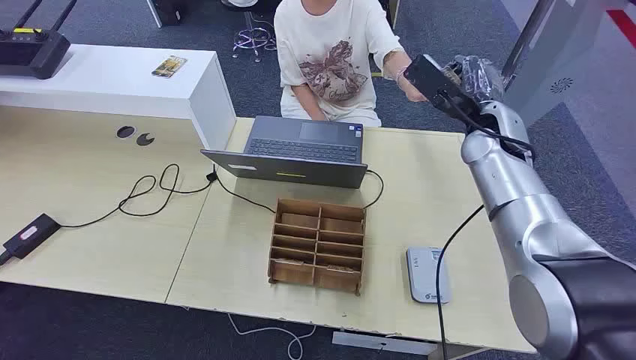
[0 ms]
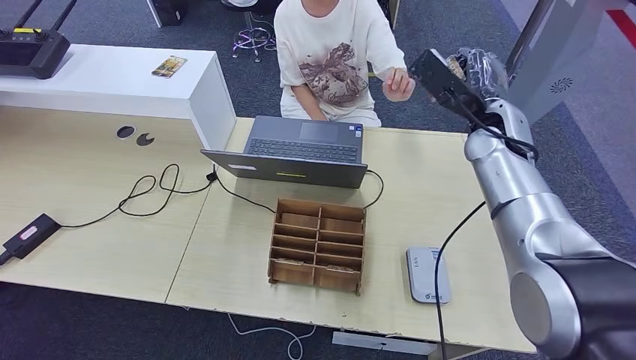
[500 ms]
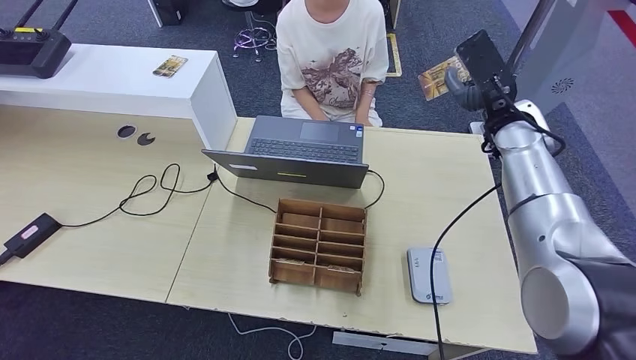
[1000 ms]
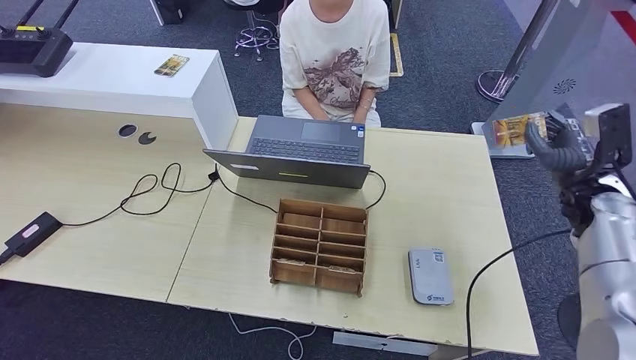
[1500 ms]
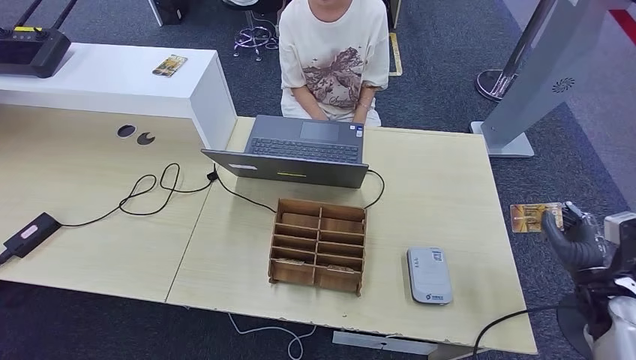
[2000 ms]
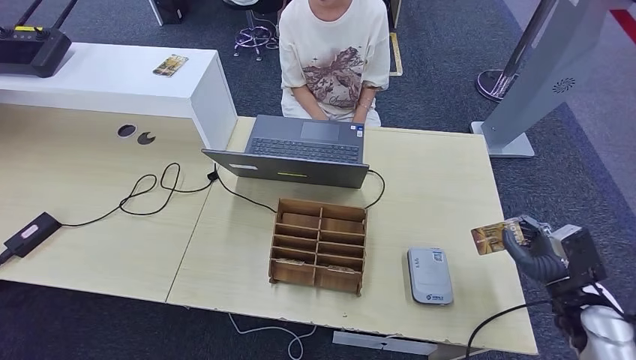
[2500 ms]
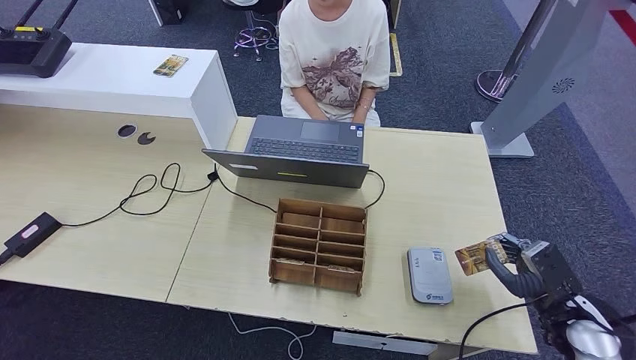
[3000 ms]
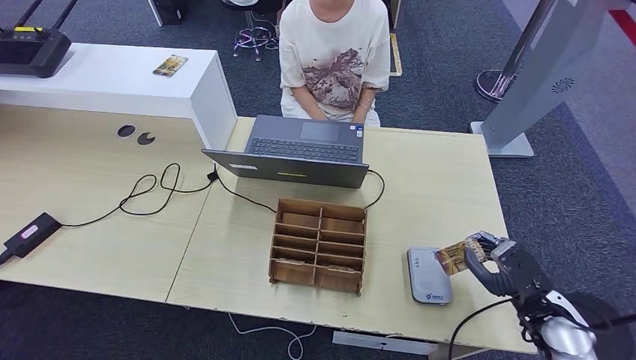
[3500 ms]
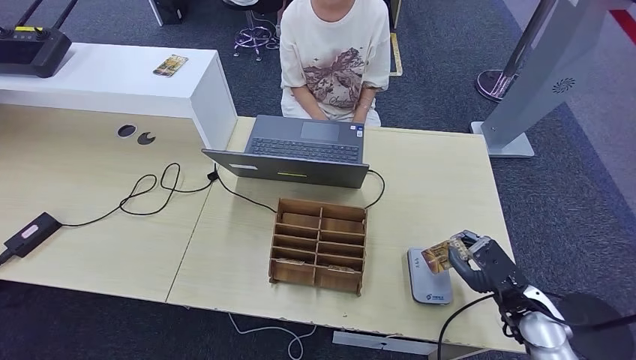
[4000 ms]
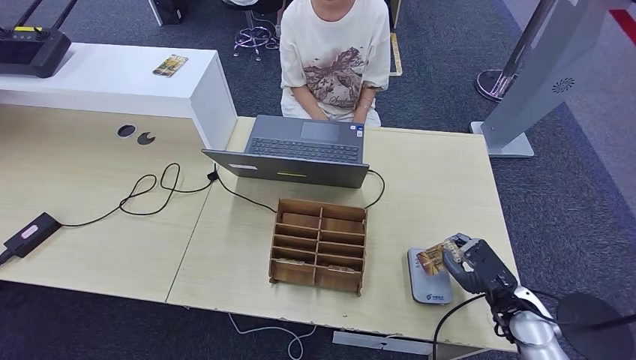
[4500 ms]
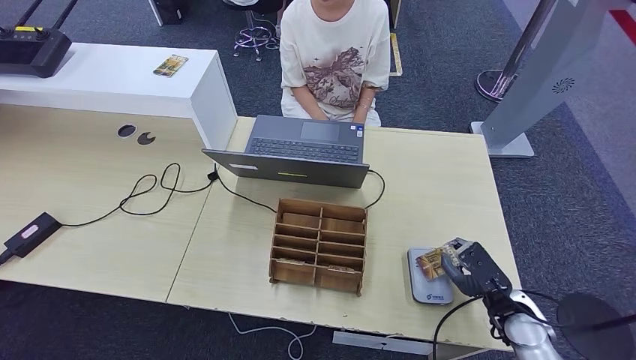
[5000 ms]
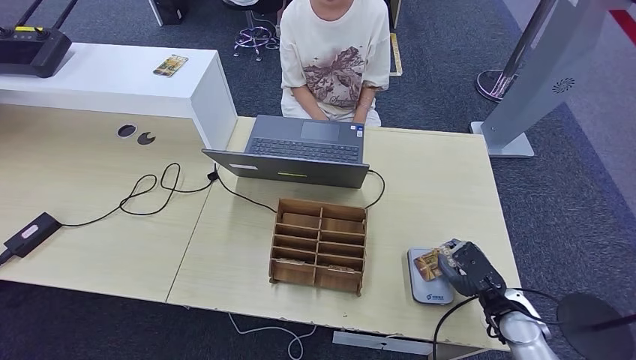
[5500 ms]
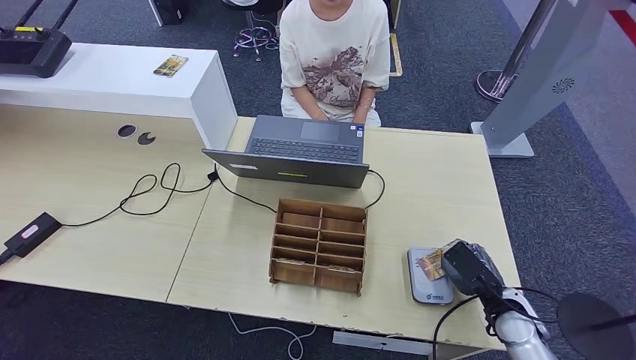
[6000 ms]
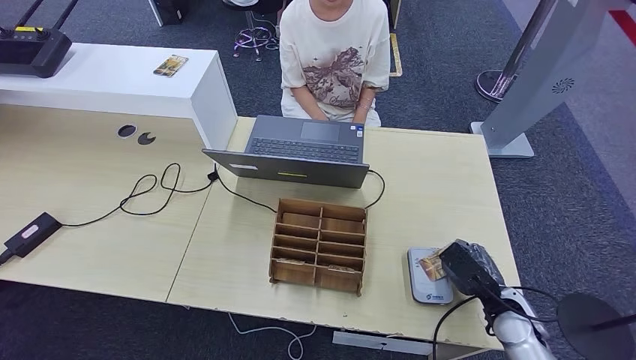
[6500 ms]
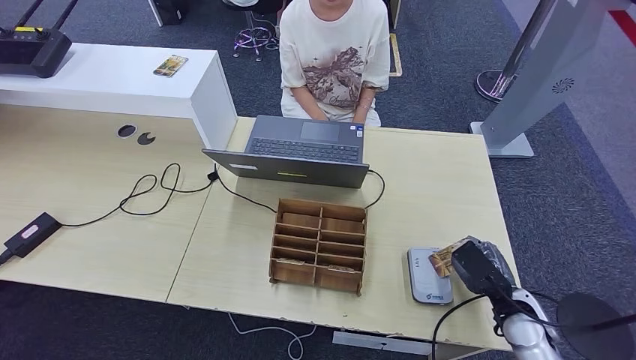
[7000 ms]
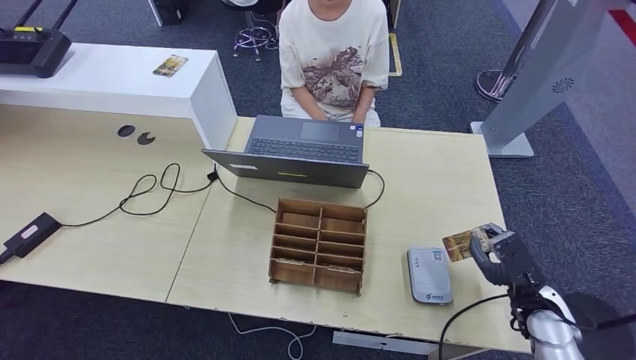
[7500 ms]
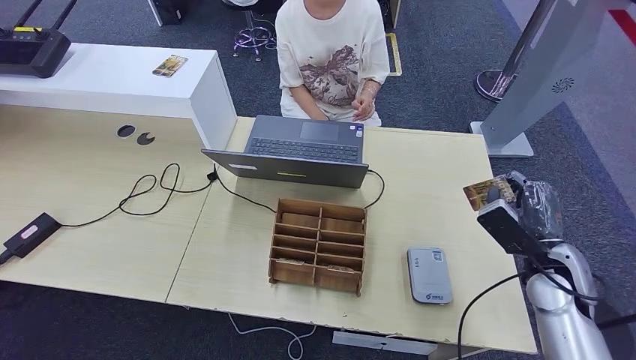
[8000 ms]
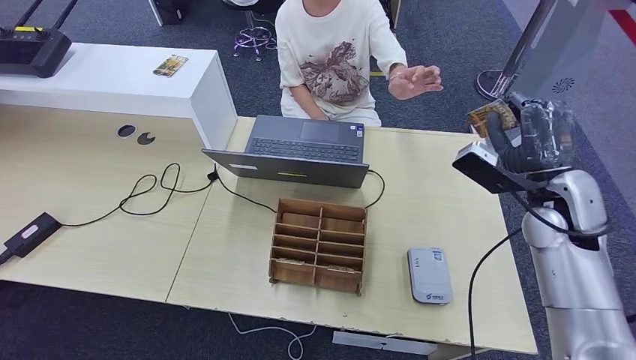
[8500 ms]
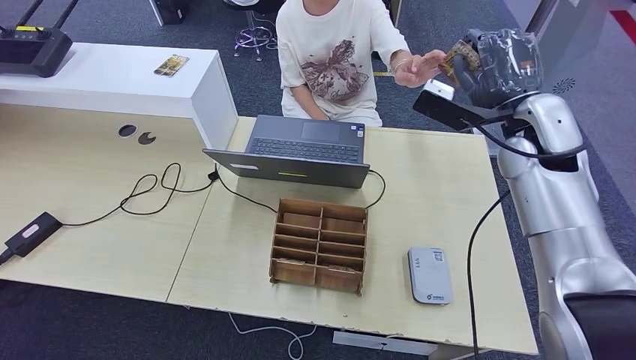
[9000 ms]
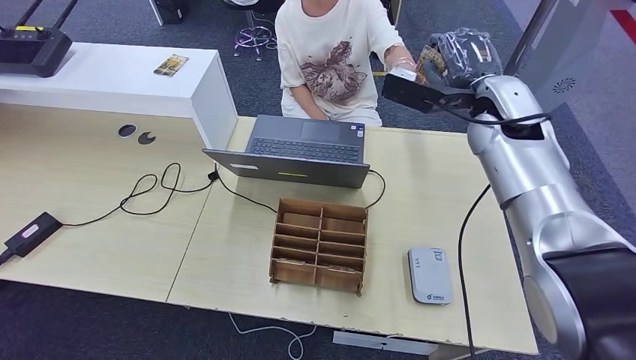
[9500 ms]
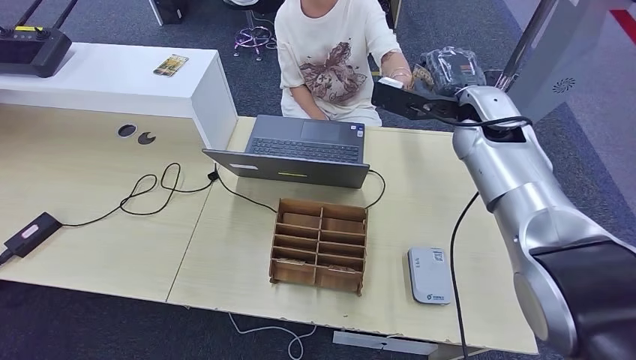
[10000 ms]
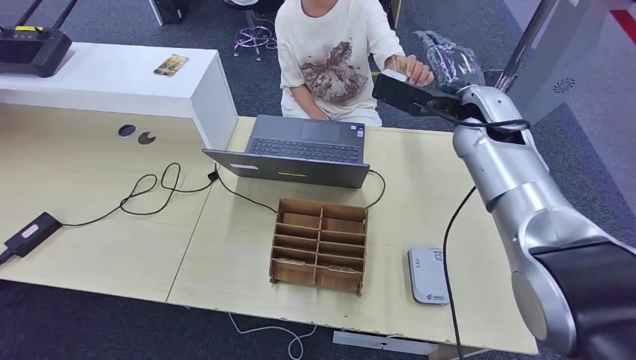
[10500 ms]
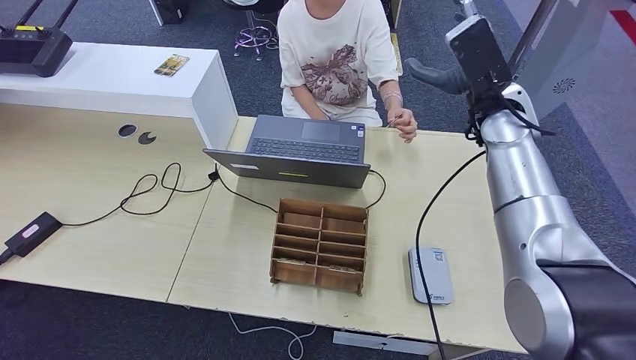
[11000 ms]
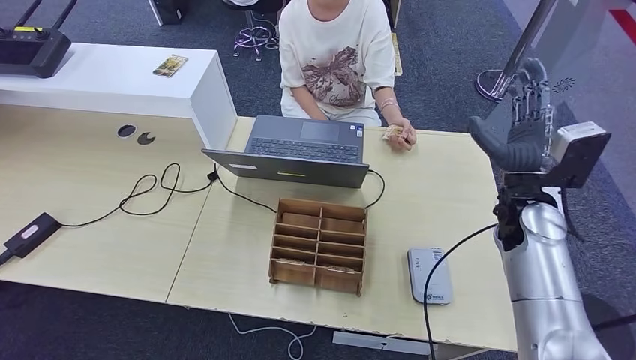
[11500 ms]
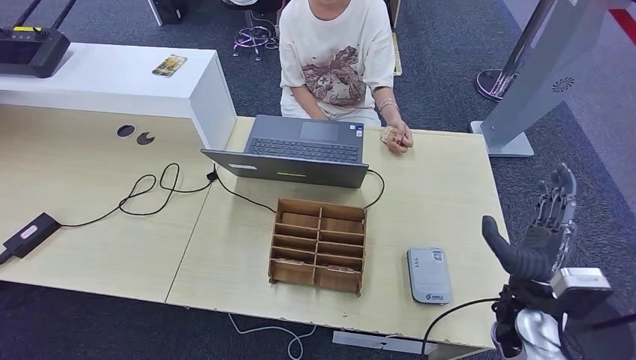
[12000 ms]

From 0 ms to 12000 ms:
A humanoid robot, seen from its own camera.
Step, from 0 ms to 1500 ms: Take the ID card from the person's hand.
Step, from 2000 ms to 8000 ms: Place the ID card on the card reader.
Step, from 8500 ms to 11500 ms: Hand the ID card to the person.
From 2000 ms to 4000 ms: The right hand moves to the left, approximately 10 cm.
From 4000 ms to 6000 ms: There are only small adjustments of the hands.
From 6000 ms to 8000 ms: The right hand is displaced upward by approximately 10 cm.
From 8000 ms to 10000 ms: The right hand shifts roughly 25 cm upward, forward and to the left.
From 10000 ms to 12000 ms: The right hand goes about 30 cm backward and downward.

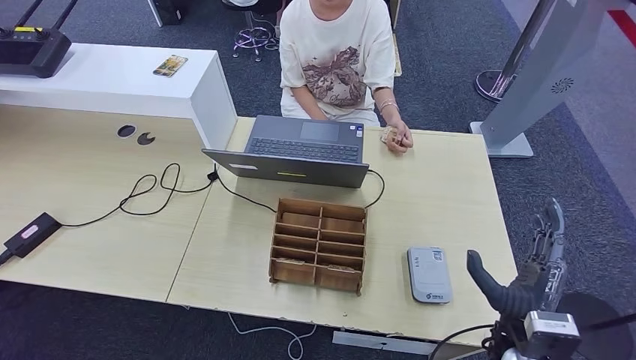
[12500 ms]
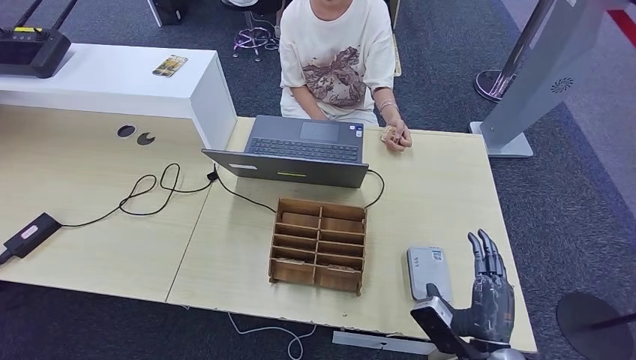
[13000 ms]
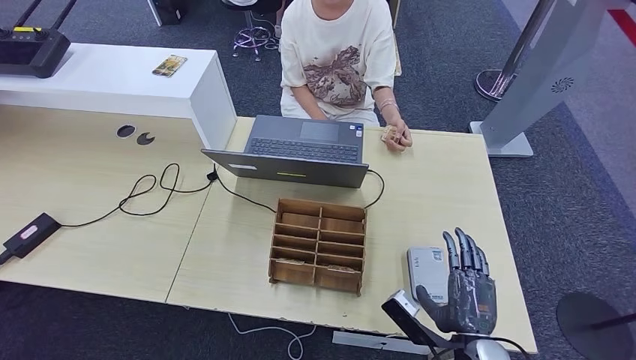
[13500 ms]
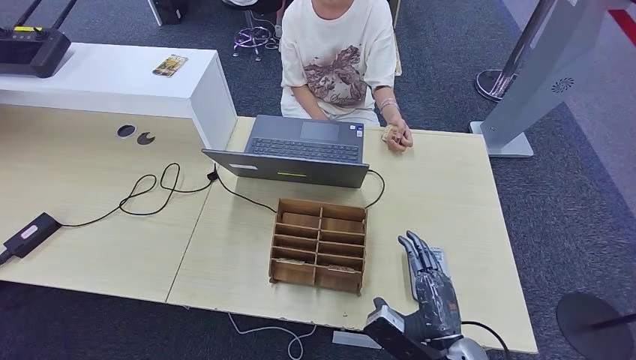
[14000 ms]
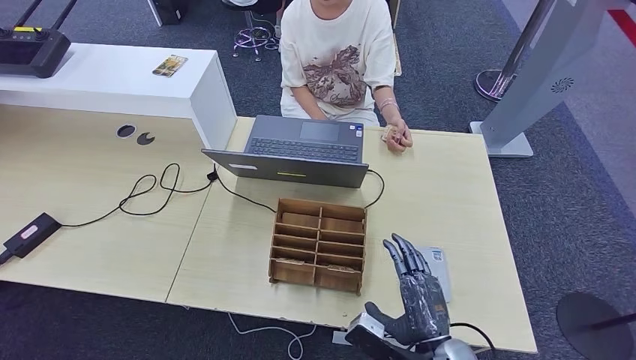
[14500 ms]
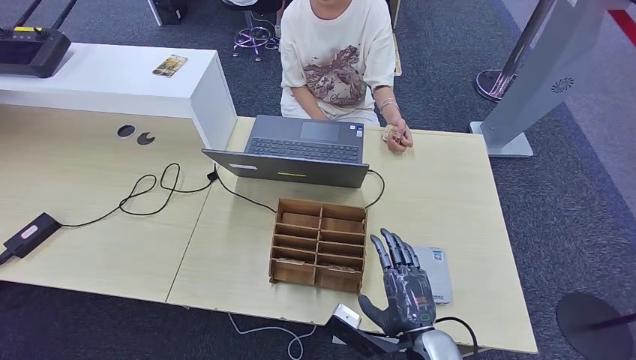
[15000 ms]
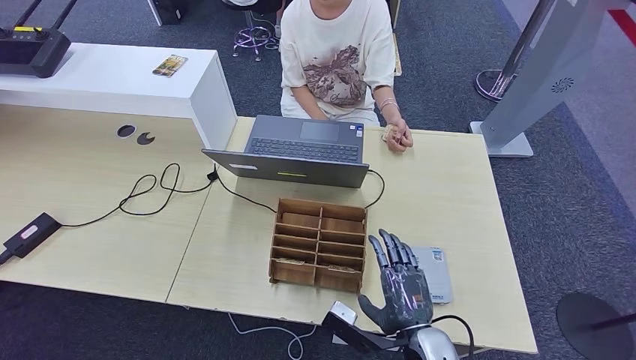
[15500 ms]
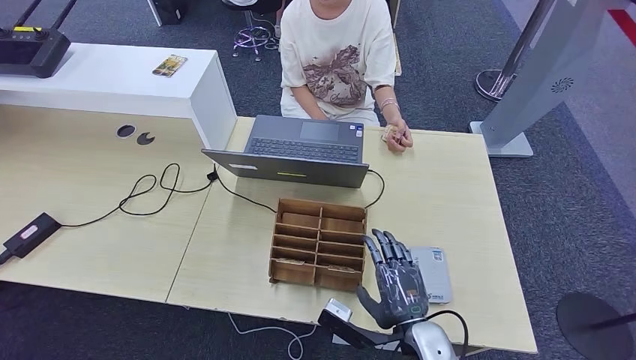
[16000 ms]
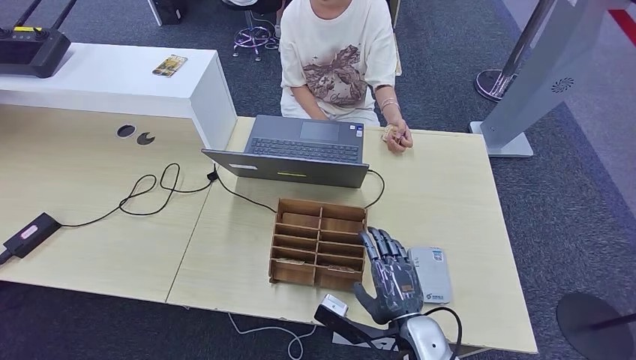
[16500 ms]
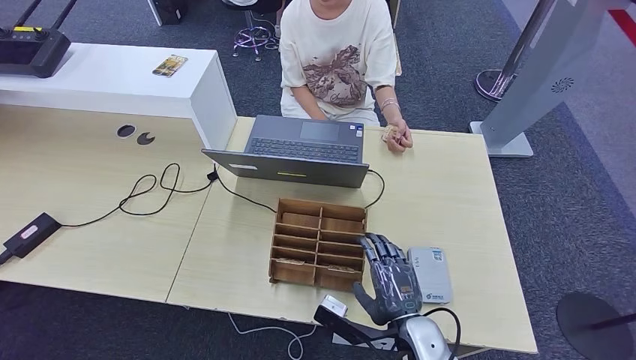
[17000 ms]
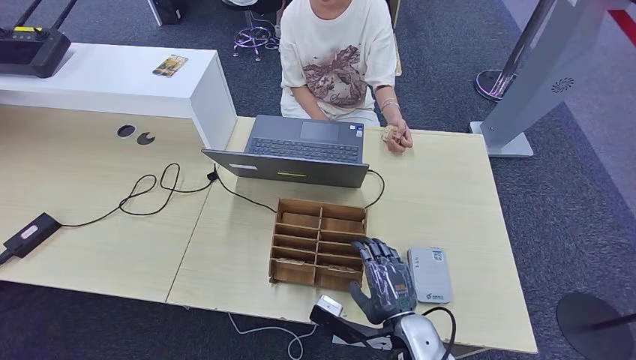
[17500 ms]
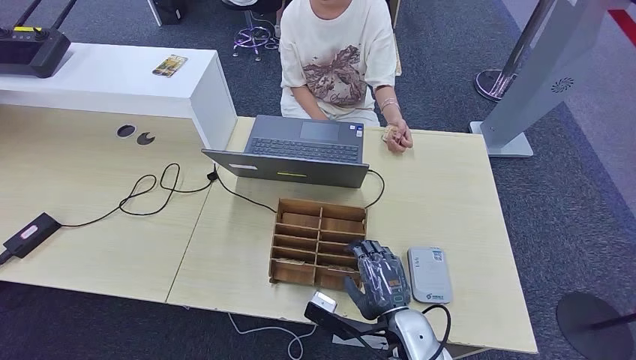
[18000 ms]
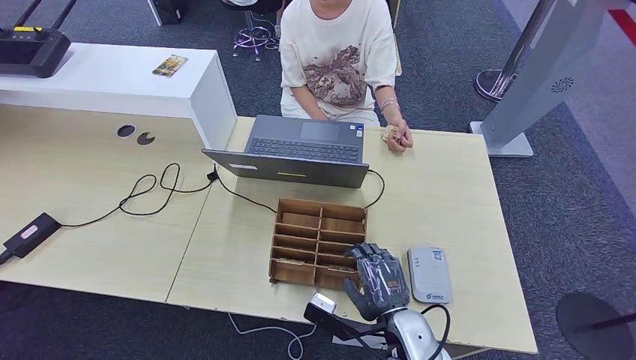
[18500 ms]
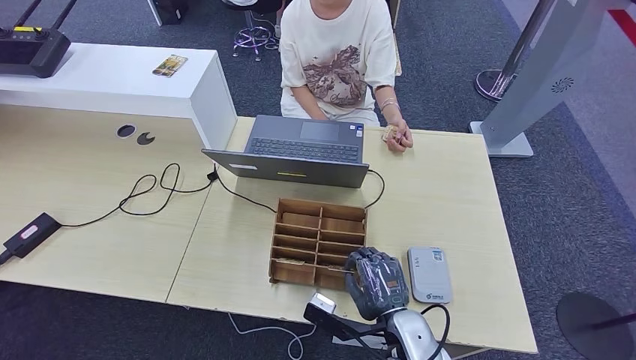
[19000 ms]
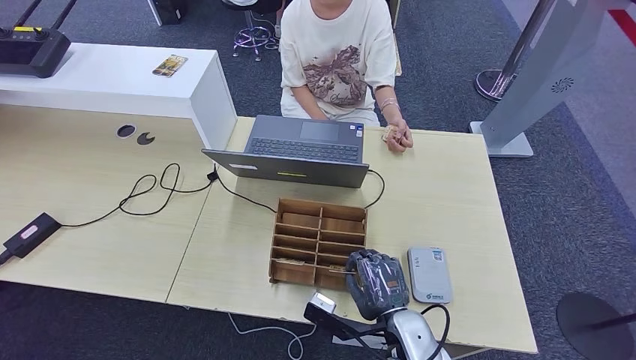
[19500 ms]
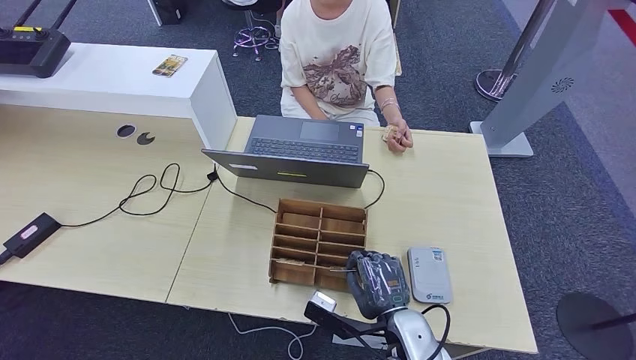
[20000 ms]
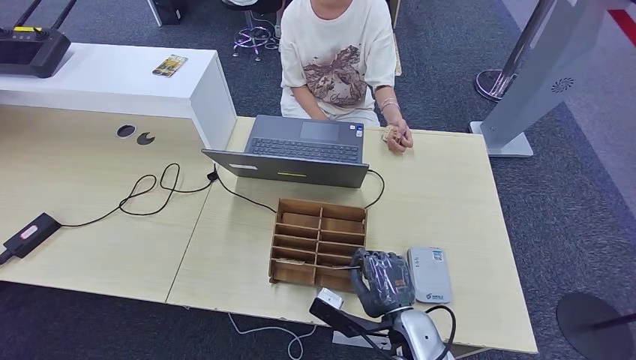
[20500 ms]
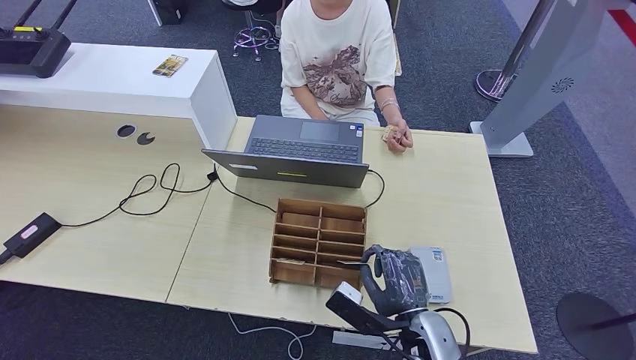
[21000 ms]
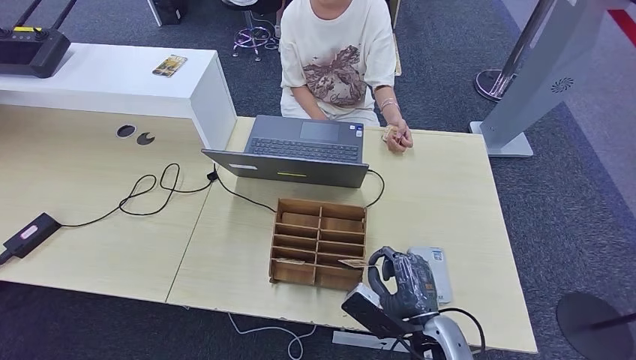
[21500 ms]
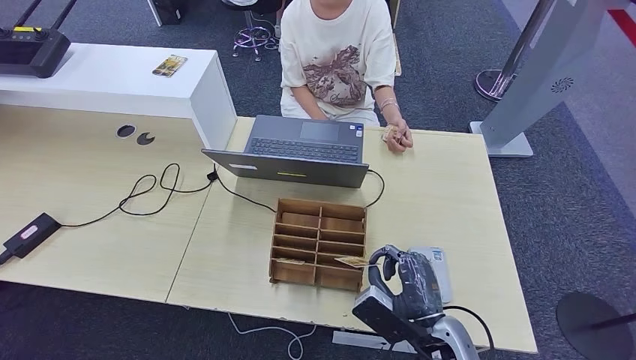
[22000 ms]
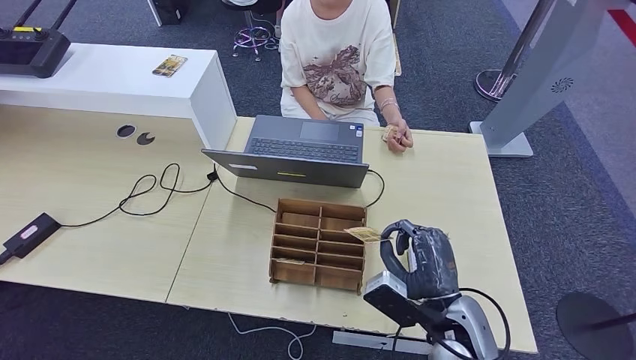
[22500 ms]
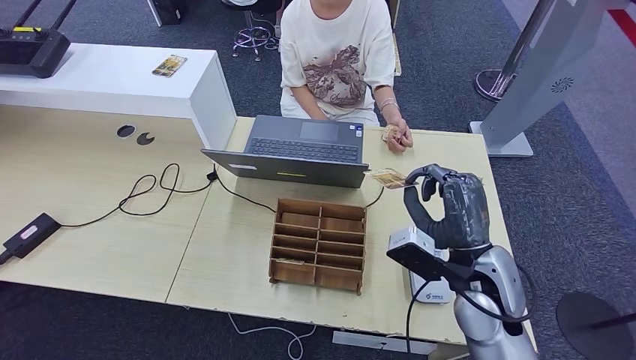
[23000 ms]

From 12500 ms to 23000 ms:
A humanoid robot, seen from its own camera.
From 12500 ms to 14500 ms: The right hand shifts approximately 10 cm to the left and backward.
From 14500 ms to 16500 ms: The hands make only small movements.
From 16500 ms to 21000 ms: The hands stay close to where they were, moving slightly.
From 21000 ms to 23000 ms: The right hand is displaced upward, forward and to the right by roughly 15 cm.
